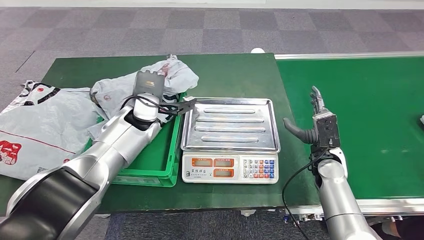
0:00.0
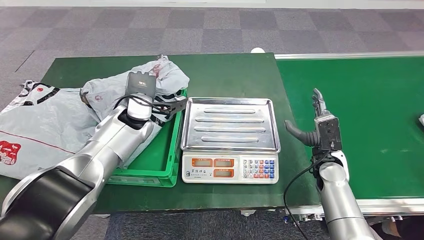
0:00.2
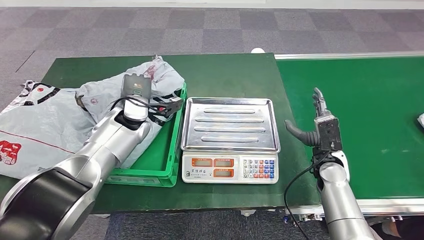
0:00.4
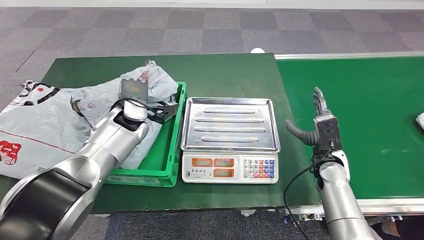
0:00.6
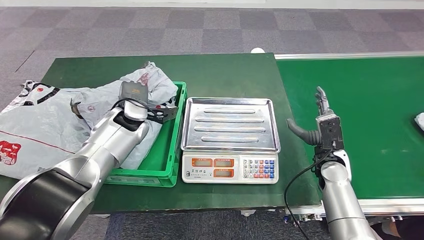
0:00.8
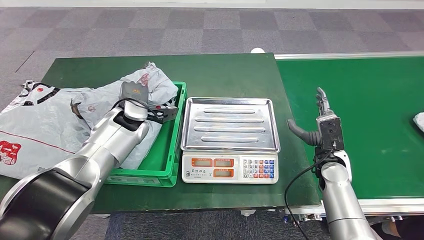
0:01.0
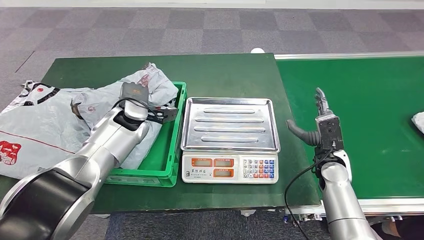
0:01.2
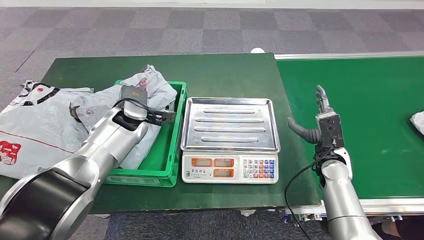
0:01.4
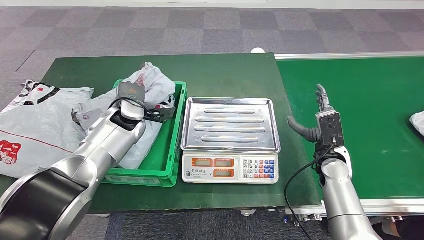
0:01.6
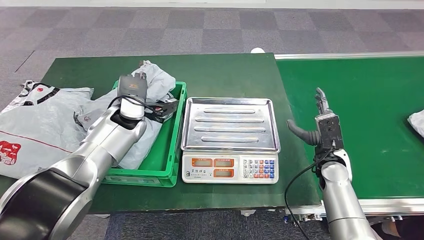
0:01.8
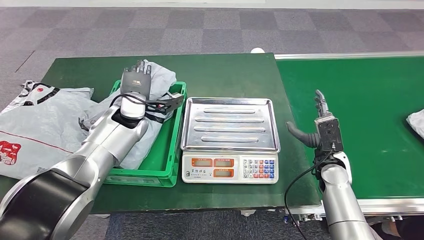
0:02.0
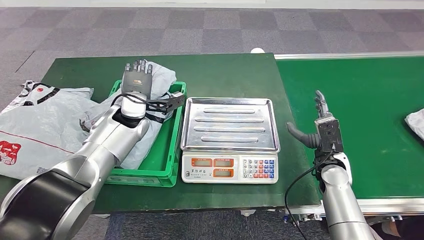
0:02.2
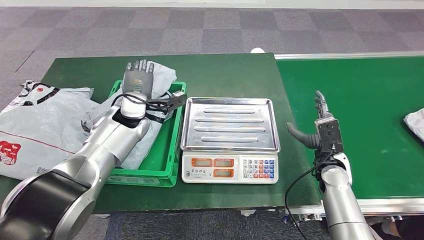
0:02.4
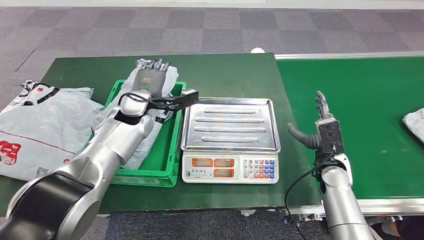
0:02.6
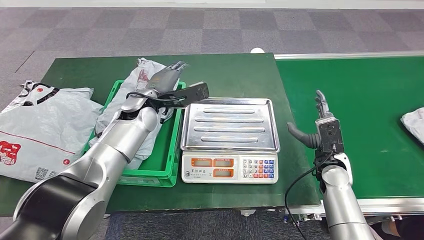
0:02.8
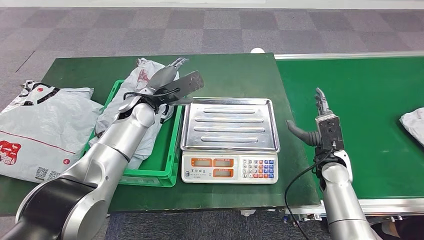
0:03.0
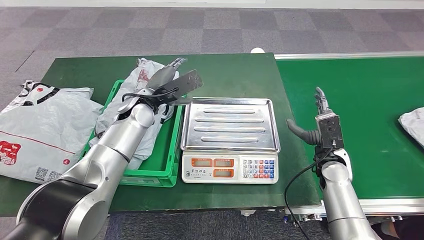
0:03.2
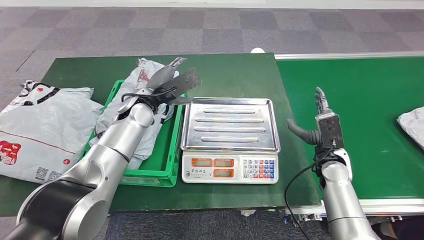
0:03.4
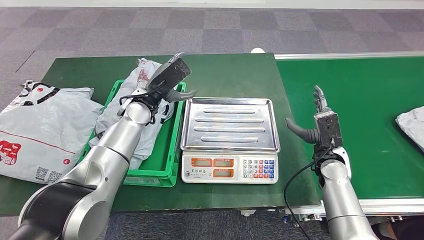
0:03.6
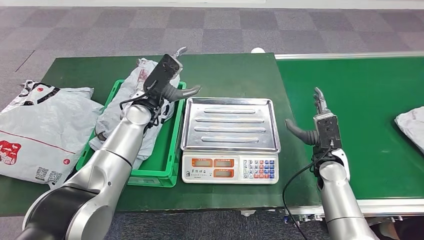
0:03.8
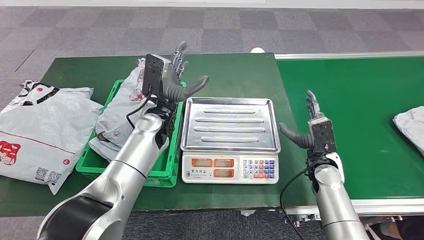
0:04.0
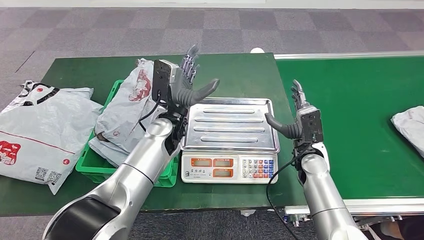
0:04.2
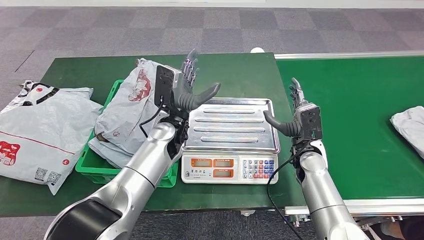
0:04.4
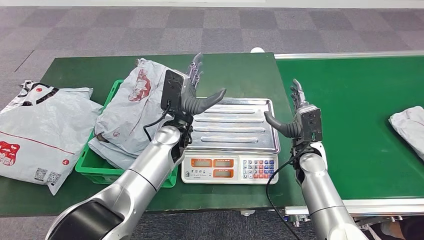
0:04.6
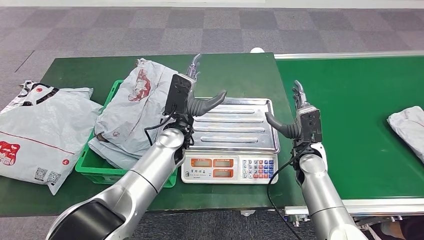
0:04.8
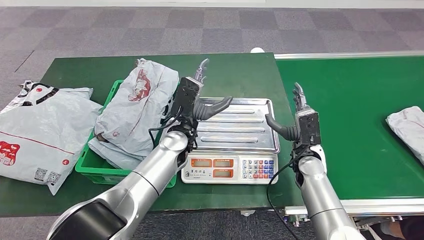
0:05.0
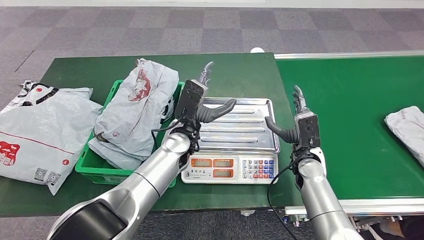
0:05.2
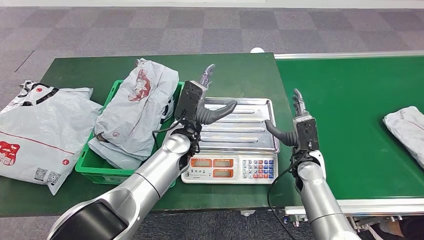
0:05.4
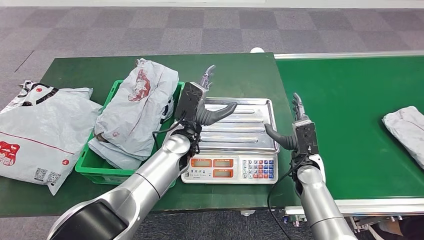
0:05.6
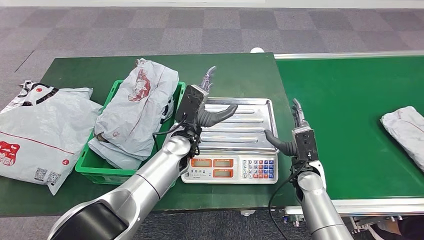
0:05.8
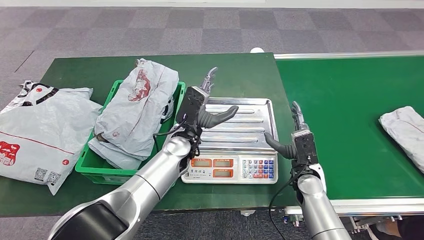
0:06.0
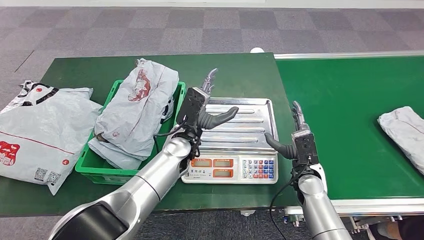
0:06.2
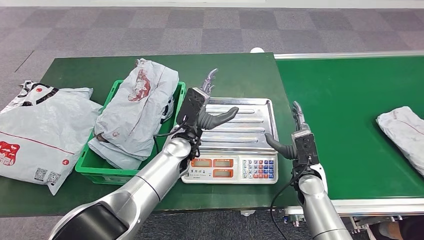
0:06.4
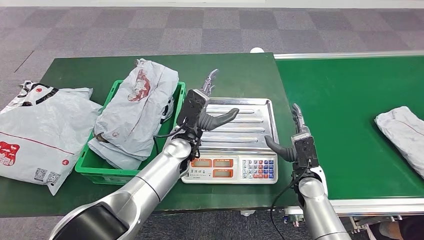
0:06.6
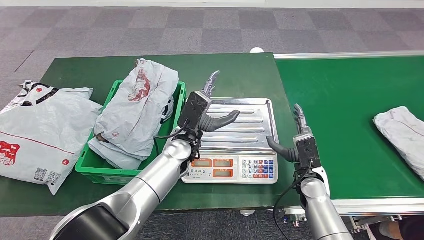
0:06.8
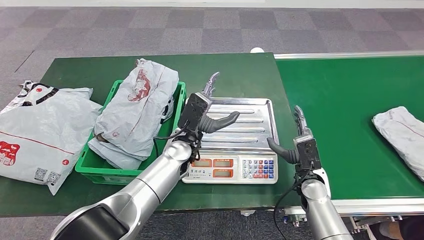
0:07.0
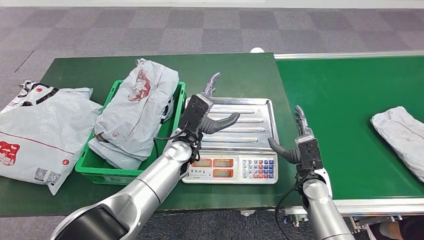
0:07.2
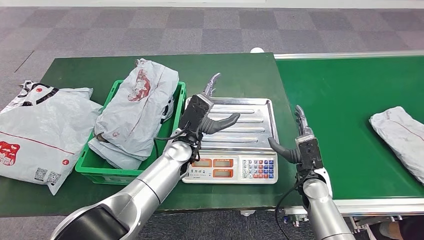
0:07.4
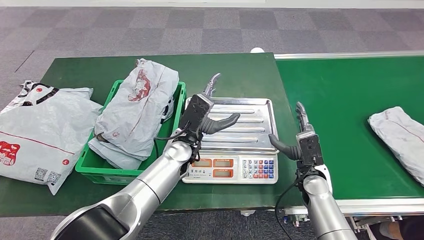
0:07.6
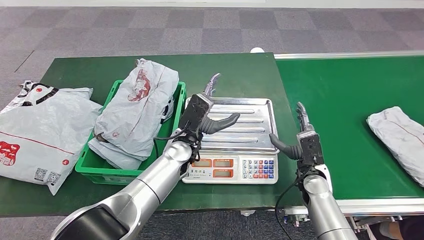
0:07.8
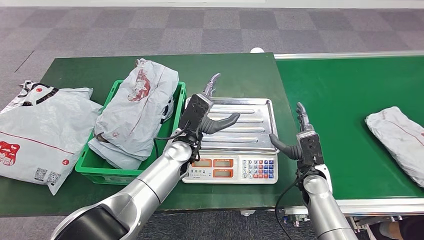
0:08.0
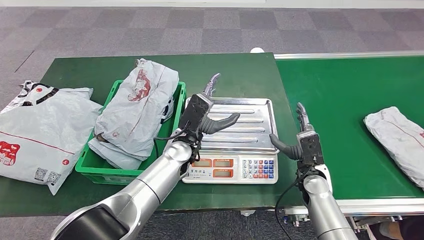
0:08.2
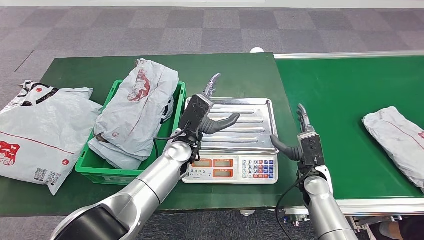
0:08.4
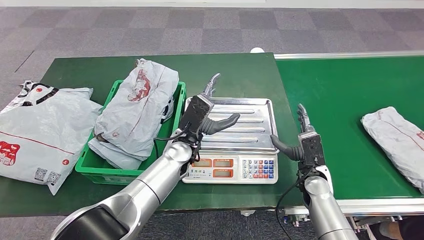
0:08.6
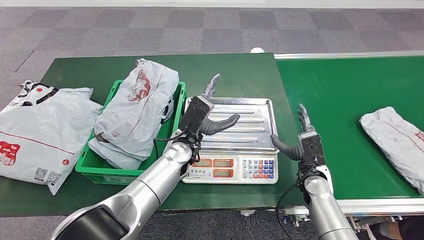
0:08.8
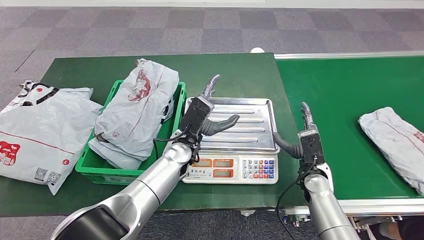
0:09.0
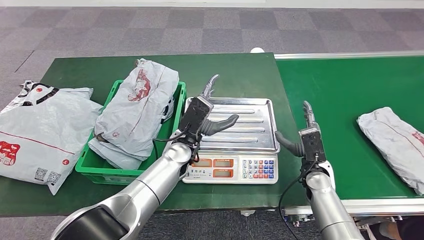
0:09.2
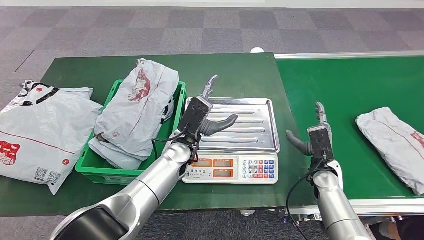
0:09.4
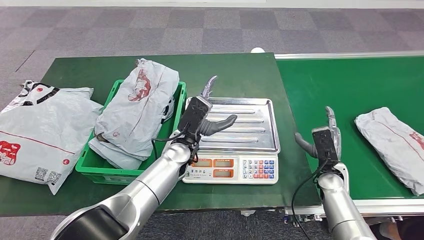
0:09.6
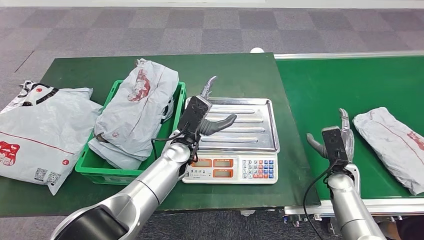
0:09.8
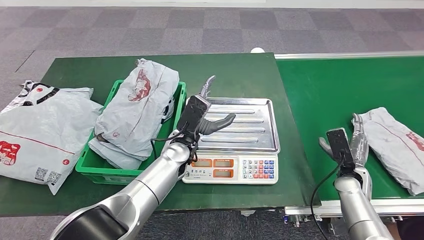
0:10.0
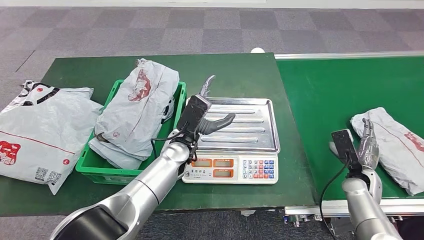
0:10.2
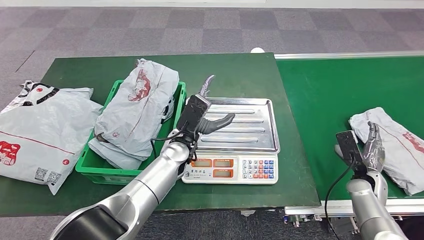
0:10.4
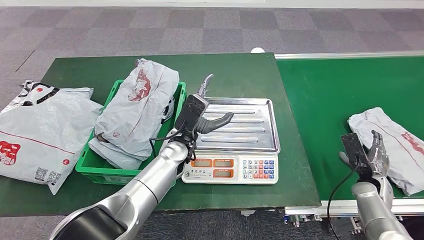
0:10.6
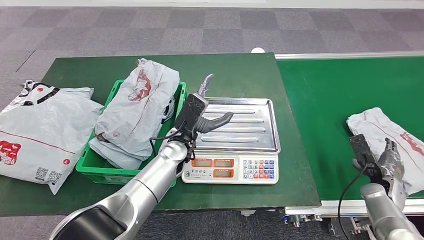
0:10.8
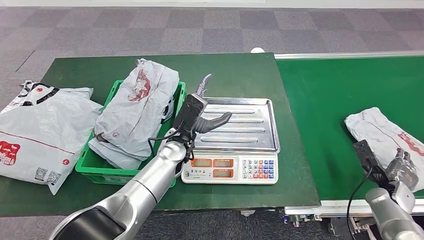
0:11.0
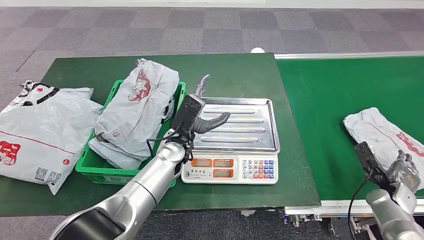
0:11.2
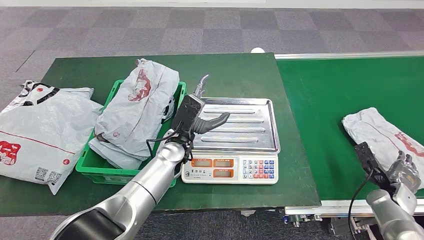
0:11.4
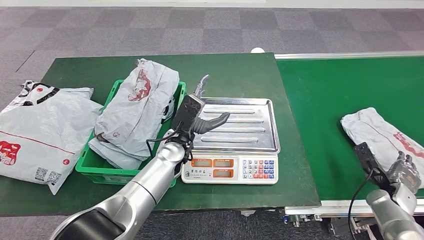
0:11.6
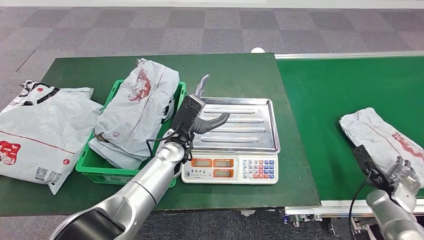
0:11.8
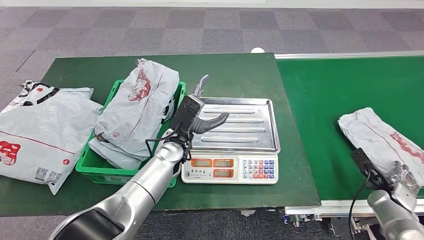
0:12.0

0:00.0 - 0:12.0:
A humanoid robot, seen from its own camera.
Step, 0:00.0 - 0:04.0: Place the parcel into the delivery box.
0:00.0 - 0:01.6: The left hand changes place by roughly 5 cm.
0:01.6 - 0:03.0: The left hand moves about 5 cm.
0:04.4 - 0:06.0: The right hand shifts by roughly 5 cm.
0:06.0 - 0:07.6: The hands stay close to where they were, moving slightly.
0:07.6 - 0:09.0: Both hands stay about where they are.
0:09.0 - 0:10.4: The right hand is displaced to the right by some 15 cm.
0:10.4 - 0:12.0: The right hand heads to the right, covering about 5 cm.

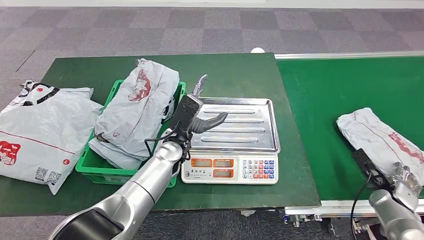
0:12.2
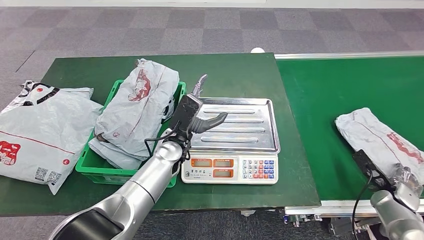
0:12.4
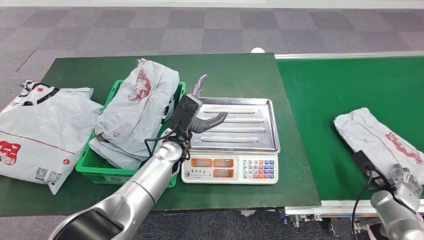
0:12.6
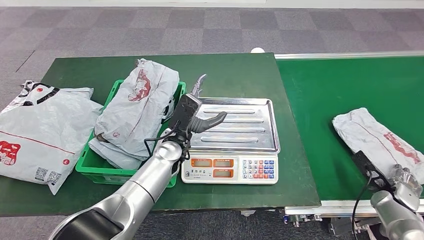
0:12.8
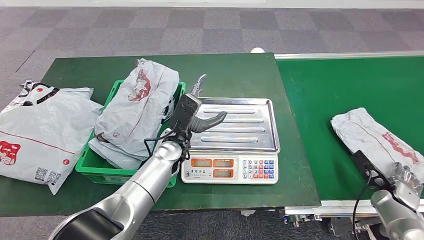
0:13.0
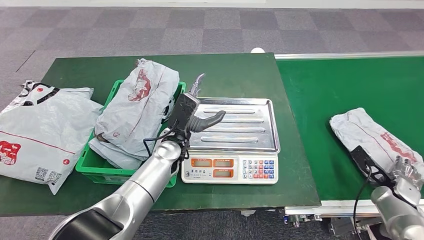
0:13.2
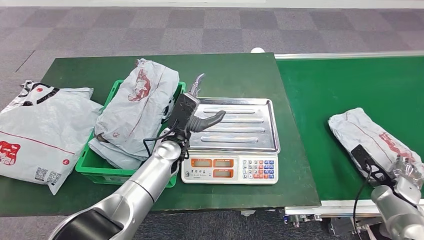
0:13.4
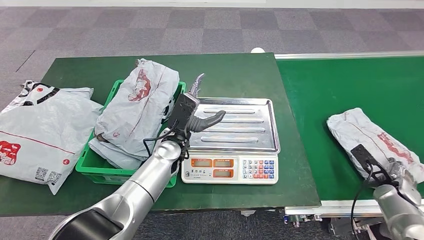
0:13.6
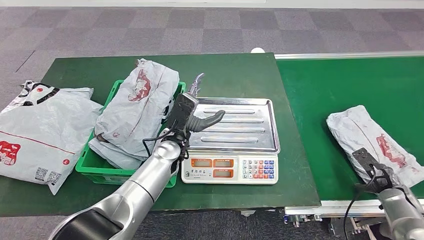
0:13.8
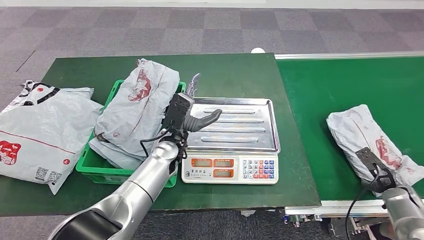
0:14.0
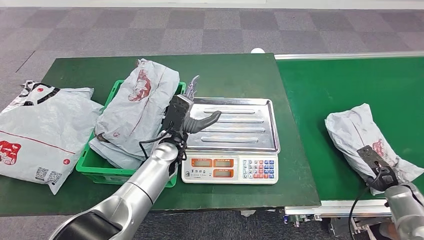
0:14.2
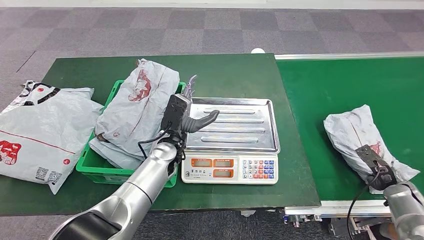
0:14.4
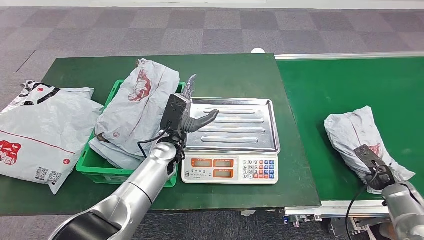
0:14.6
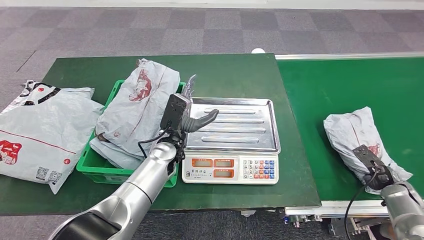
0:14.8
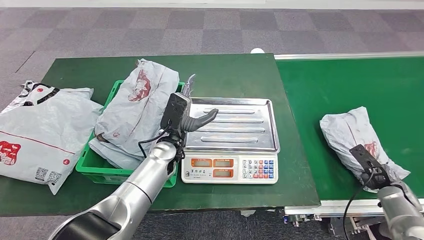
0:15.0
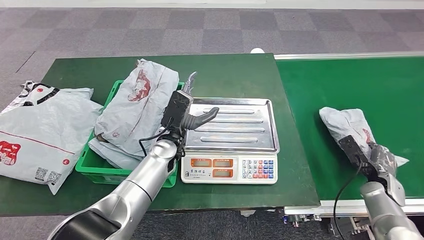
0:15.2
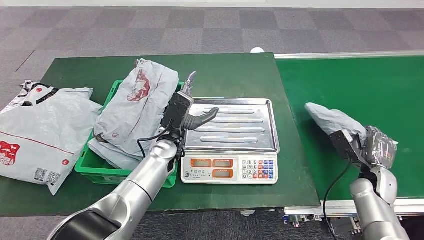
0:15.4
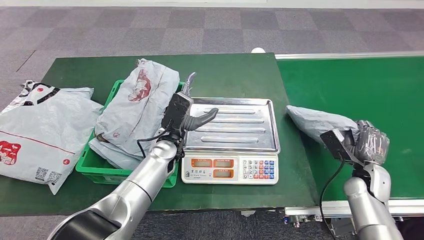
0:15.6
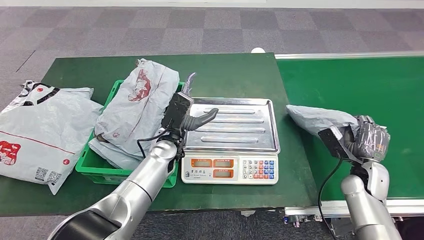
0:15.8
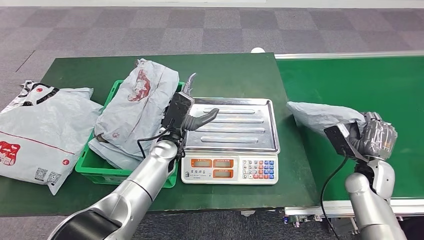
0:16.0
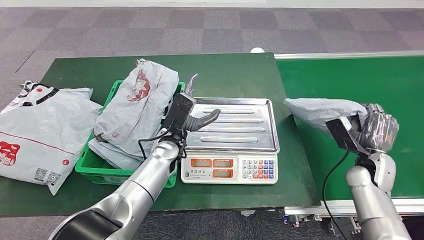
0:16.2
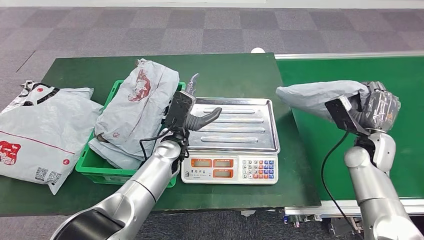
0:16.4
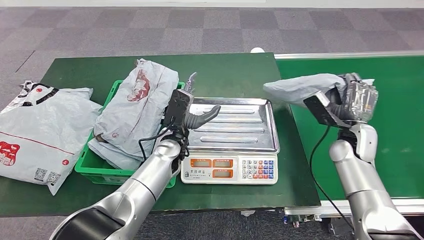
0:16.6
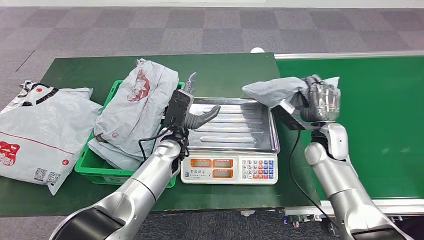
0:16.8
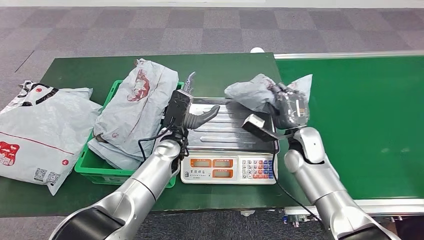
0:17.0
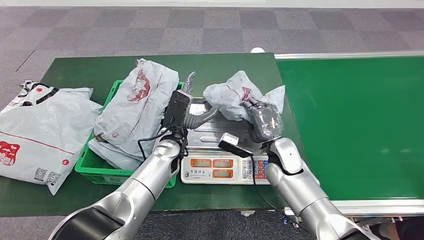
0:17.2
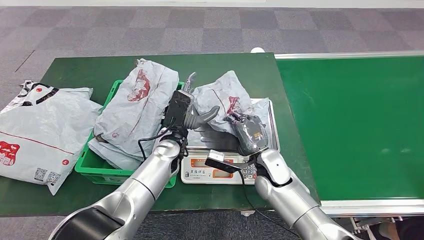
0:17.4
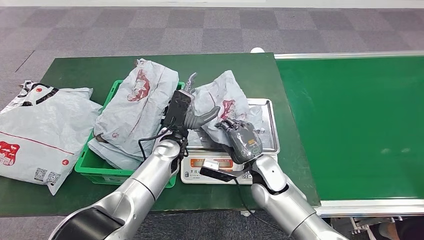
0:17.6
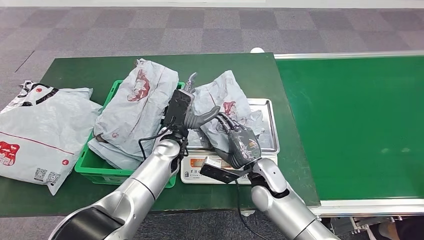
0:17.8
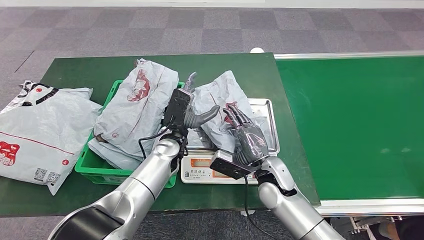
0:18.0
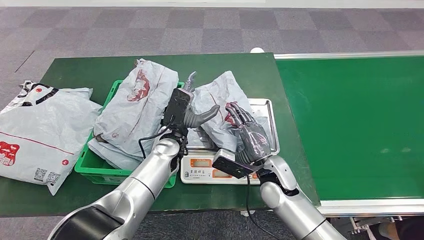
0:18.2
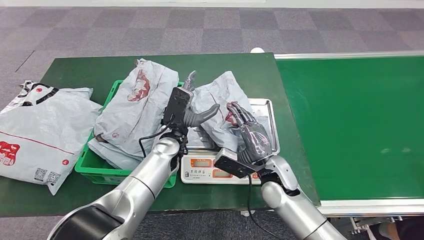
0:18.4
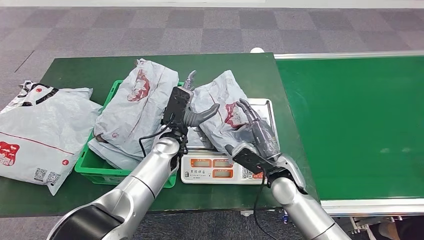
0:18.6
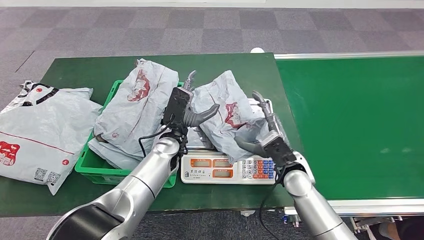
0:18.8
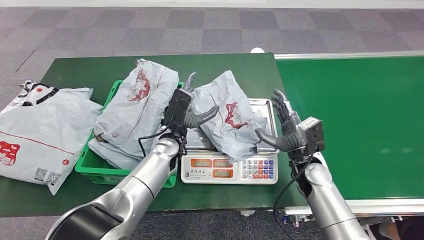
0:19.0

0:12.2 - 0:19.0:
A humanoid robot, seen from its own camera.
Step, 0:13.4 - 0:16.0: Pick up the parcel from the conveyor belt.
0:12.2 - 0:13.6: The hands move only a little.
0:15.0 - 0:16.2: The right hand travels to the left and upward by about 15 cm.
0:17.6 - 0:19.0: The right hand shifts about 10 cm to the right.
